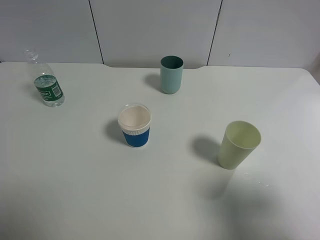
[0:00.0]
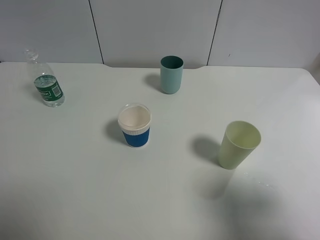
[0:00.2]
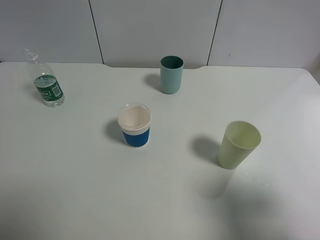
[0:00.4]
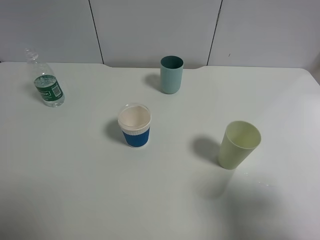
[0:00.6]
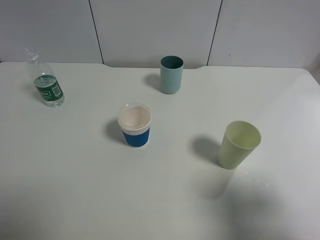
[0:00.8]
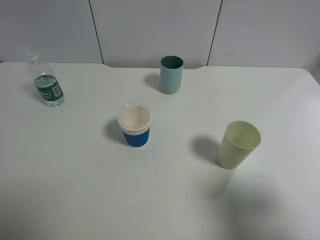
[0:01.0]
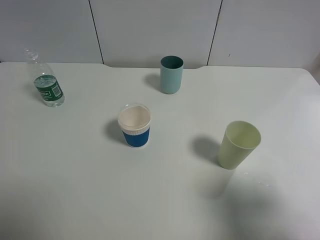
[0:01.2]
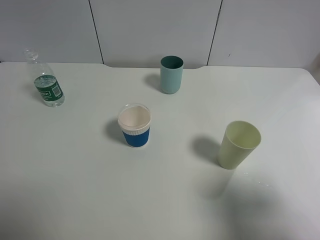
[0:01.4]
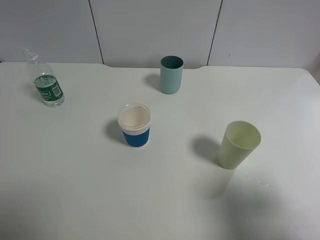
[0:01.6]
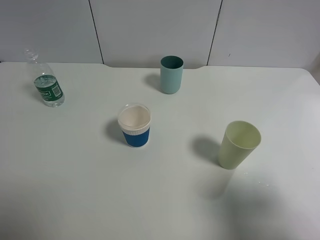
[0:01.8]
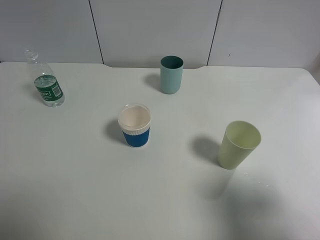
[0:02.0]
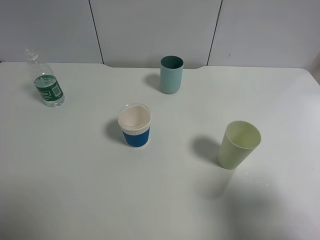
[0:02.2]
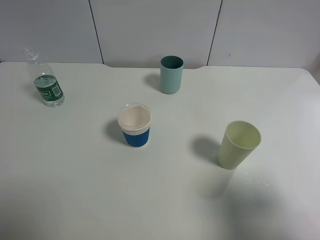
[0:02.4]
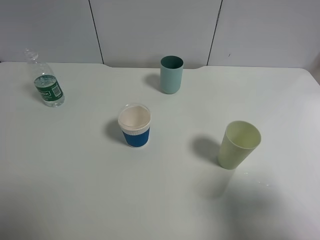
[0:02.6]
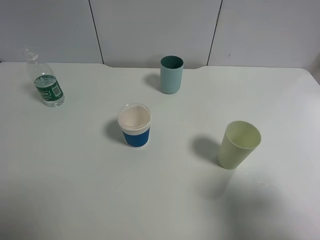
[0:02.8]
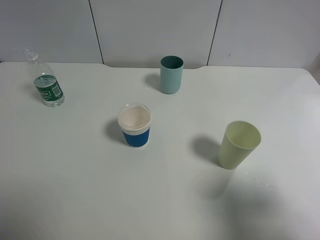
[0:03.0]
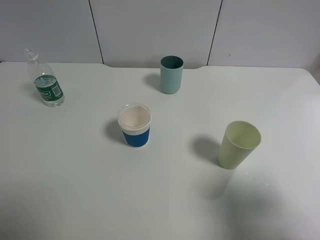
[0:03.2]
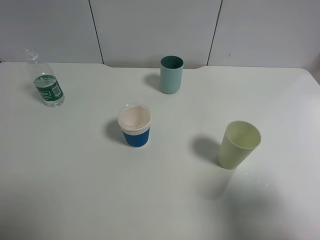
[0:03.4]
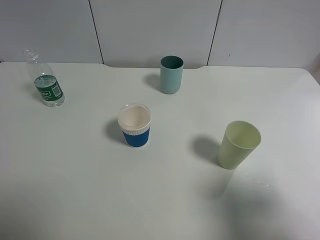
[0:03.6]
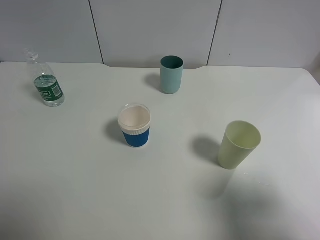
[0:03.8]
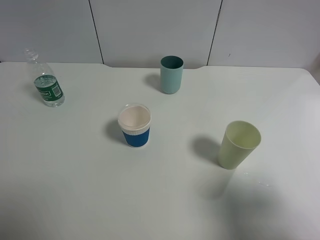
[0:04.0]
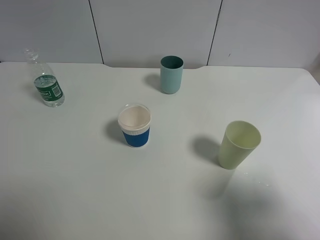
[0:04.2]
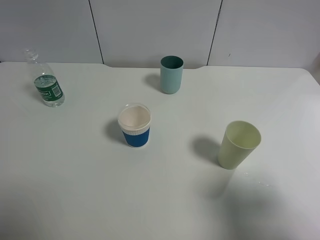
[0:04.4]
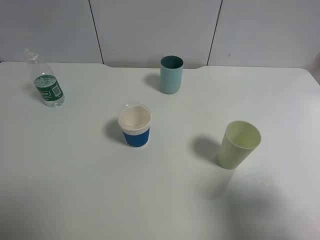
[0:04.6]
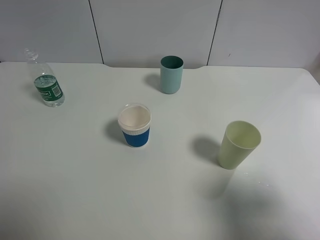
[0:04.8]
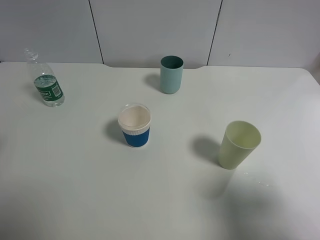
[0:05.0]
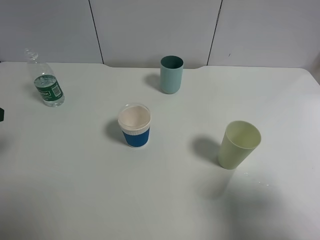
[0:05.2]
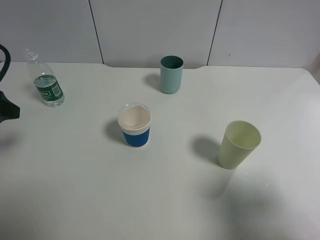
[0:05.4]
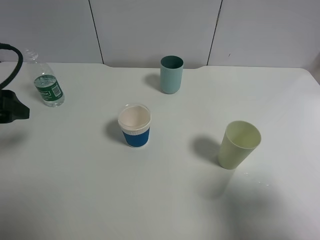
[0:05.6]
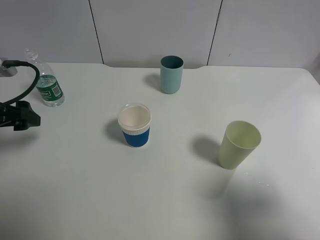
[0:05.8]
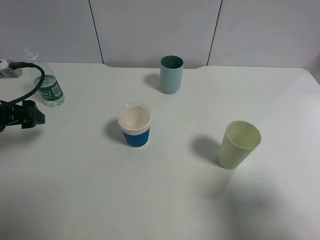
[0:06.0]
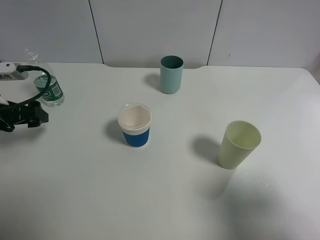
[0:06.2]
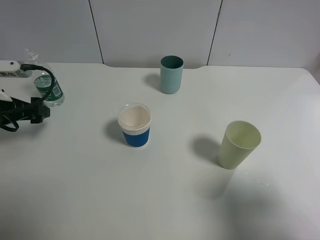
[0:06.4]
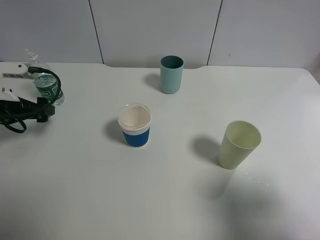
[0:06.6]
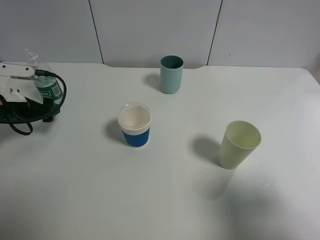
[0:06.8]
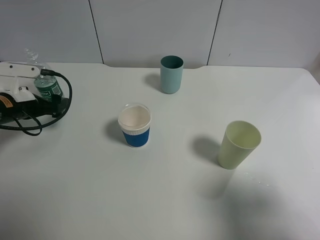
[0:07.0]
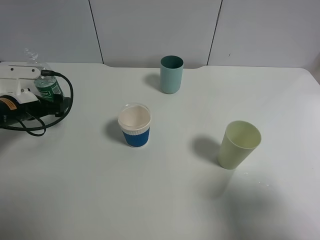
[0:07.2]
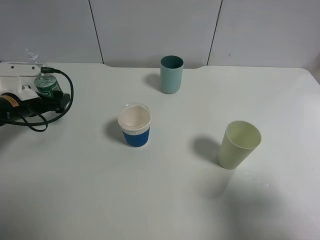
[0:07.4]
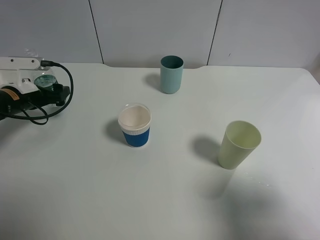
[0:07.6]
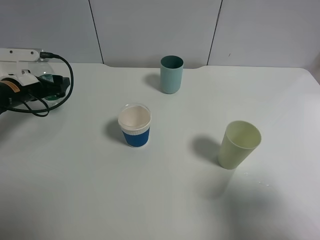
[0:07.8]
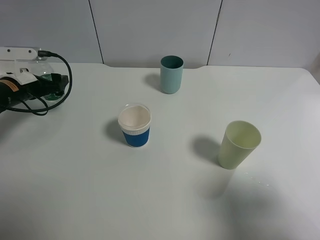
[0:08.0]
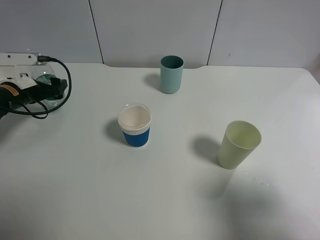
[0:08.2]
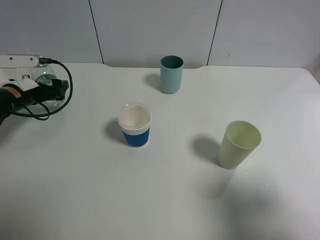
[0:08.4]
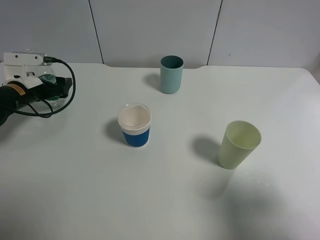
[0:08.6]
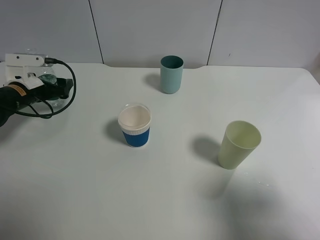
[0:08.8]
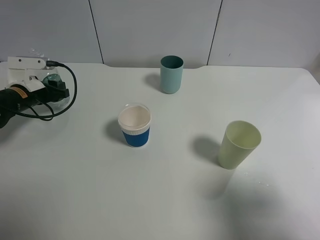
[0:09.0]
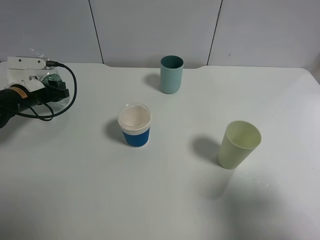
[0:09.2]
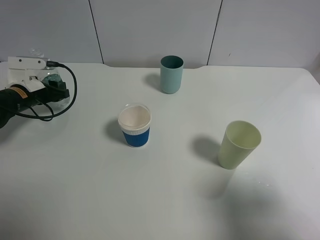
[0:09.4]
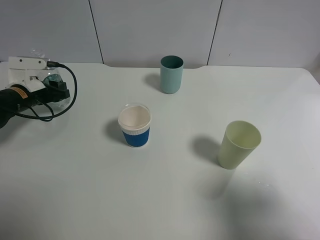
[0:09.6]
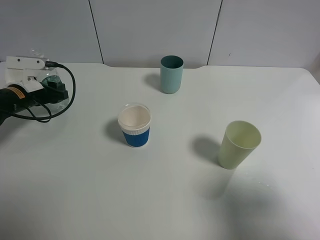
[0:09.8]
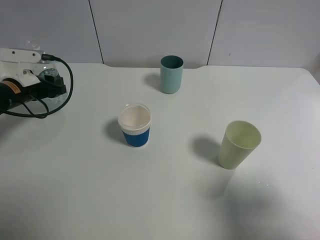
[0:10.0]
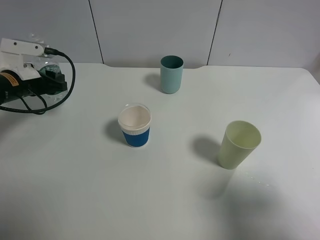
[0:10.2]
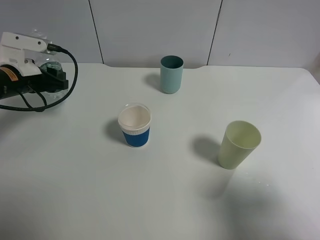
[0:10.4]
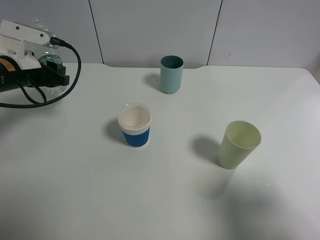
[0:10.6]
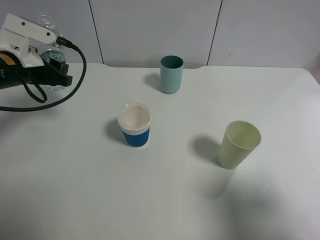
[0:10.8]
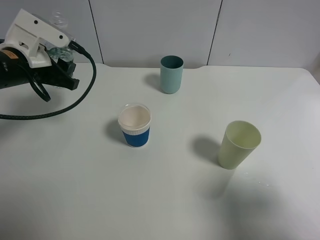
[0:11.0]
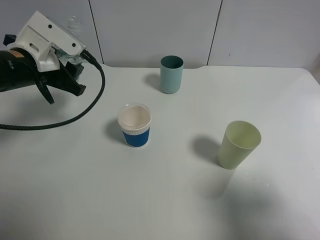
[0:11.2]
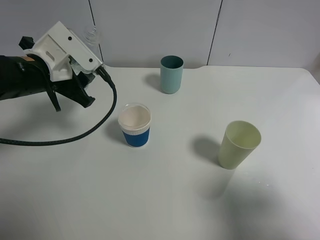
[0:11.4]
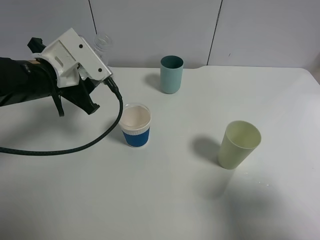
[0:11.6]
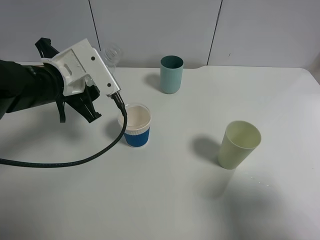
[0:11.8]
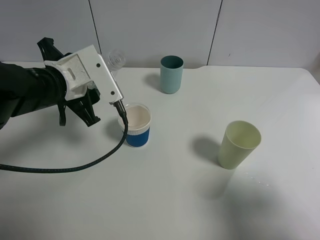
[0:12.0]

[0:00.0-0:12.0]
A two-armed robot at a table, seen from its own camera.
Task of the whole recording: use a gripper to hold the bottle of the drink and pour it into a random cup.
Step, 0:00.0 to 0:09.4: Grasp the mineral water bottle with the left gripper.
0:00.0 to 0:03.0: The two grippers keep their place.
0:04.4 to 0:06.0: The left gripper goes approximately 20 cm forward and downward.
0:06.0 to 0:07.6: The left gripper travels forward and downward by roughly 10 cm.
0:07.6 to 0:09.0: The left gripper closes up.
0:09.0 to 0:10.4: The left gripper moves upward, approximately 5 cm.
0:10.4 to 0:12.0: The left gripper moves to the right and backward, about 15 cm.

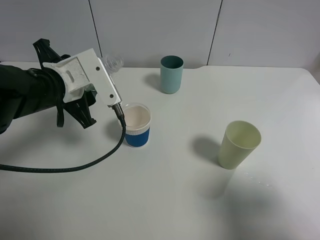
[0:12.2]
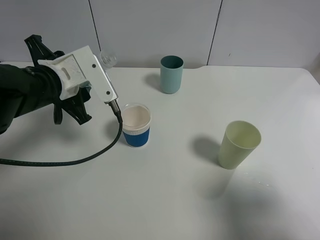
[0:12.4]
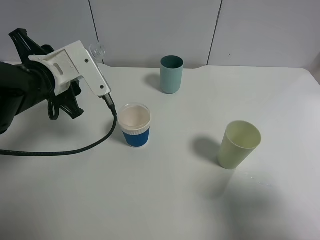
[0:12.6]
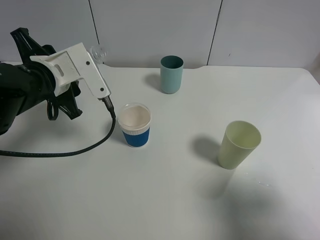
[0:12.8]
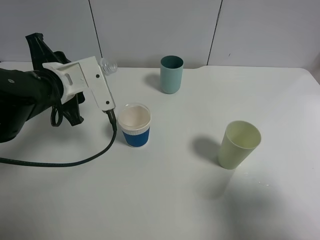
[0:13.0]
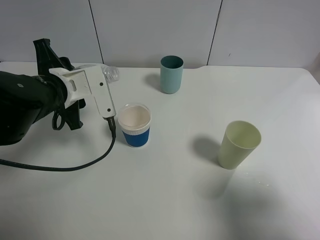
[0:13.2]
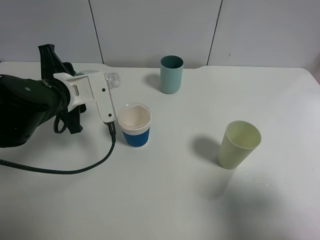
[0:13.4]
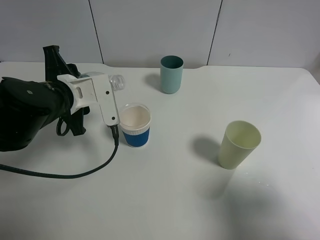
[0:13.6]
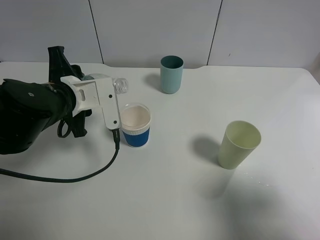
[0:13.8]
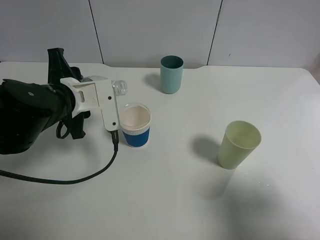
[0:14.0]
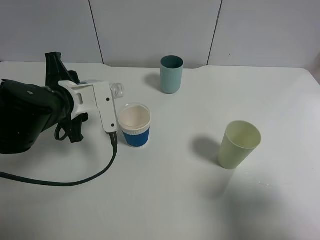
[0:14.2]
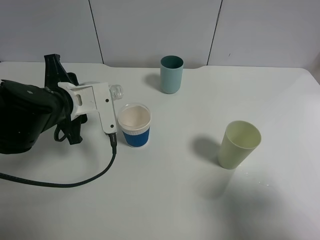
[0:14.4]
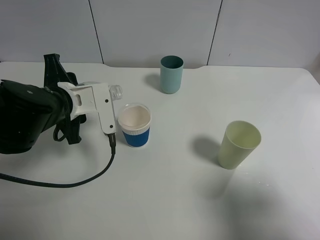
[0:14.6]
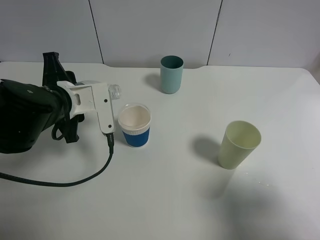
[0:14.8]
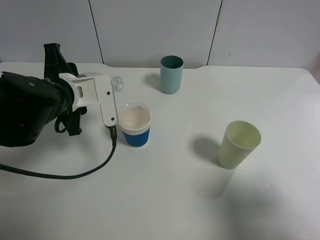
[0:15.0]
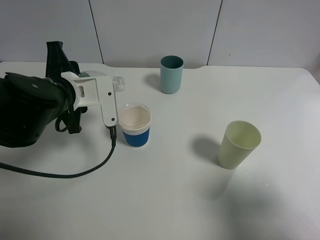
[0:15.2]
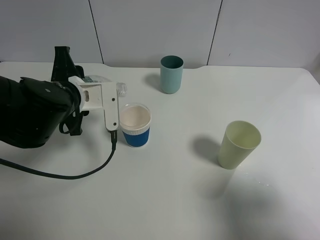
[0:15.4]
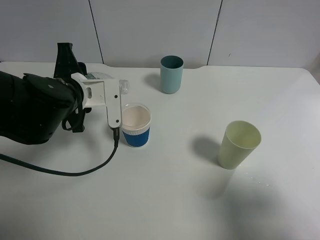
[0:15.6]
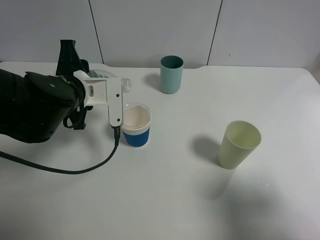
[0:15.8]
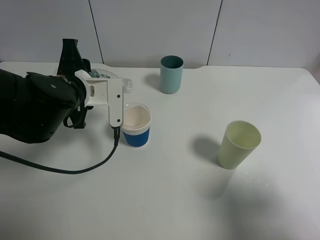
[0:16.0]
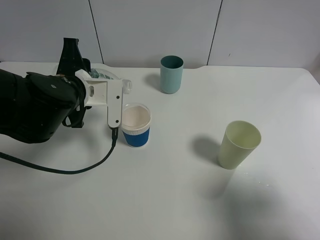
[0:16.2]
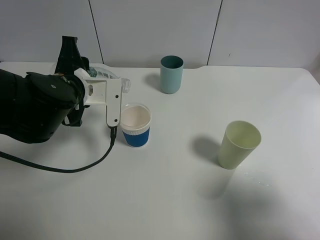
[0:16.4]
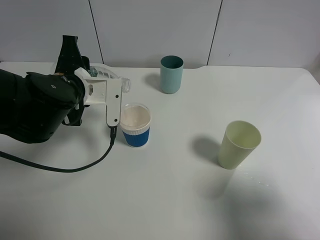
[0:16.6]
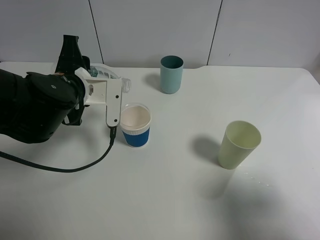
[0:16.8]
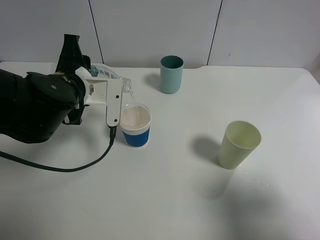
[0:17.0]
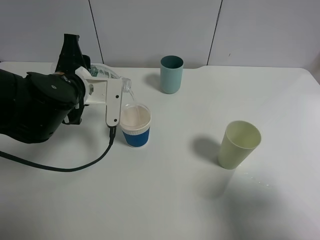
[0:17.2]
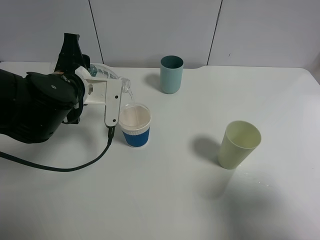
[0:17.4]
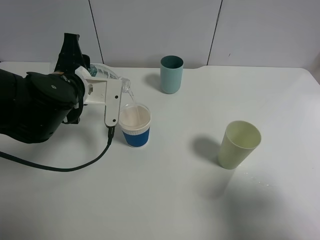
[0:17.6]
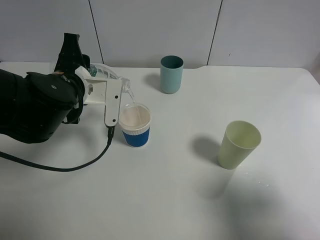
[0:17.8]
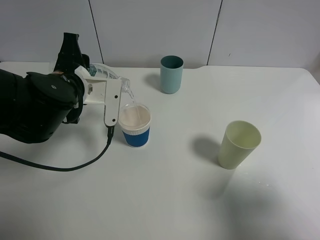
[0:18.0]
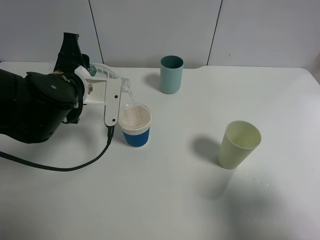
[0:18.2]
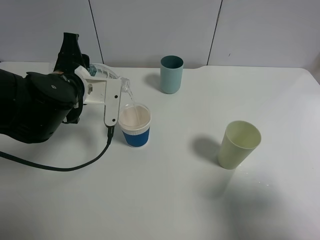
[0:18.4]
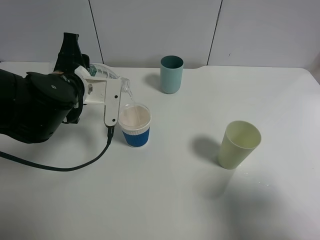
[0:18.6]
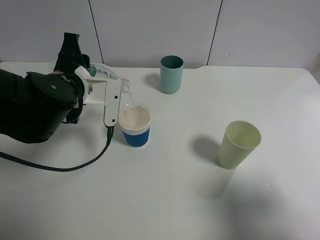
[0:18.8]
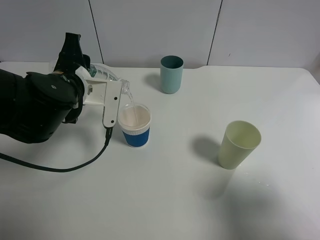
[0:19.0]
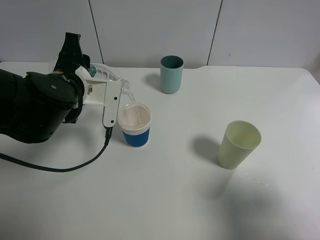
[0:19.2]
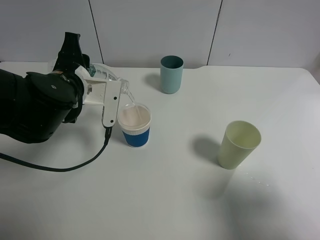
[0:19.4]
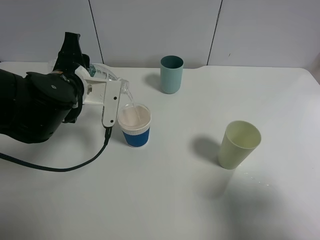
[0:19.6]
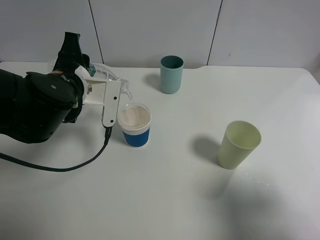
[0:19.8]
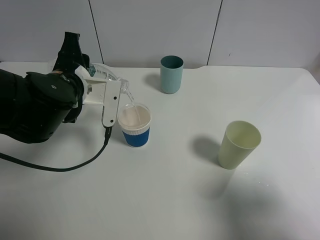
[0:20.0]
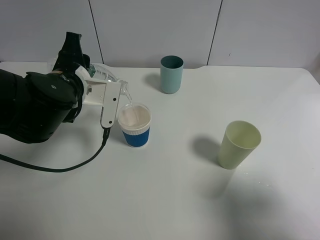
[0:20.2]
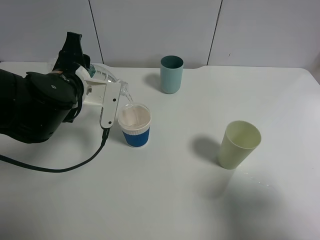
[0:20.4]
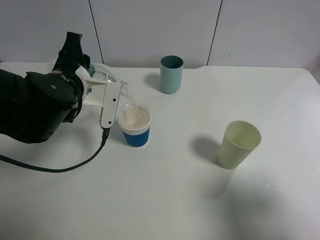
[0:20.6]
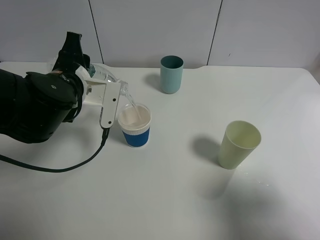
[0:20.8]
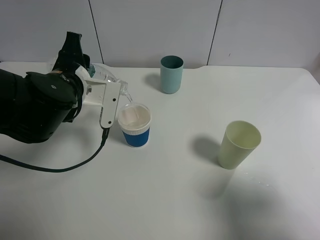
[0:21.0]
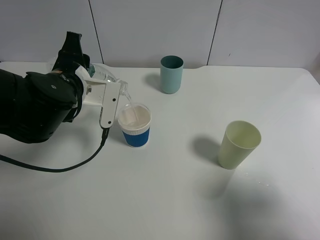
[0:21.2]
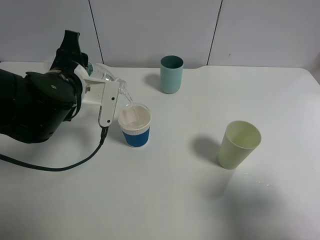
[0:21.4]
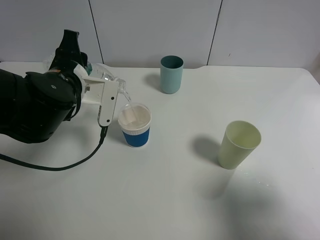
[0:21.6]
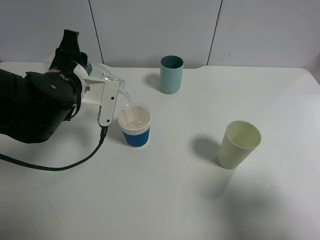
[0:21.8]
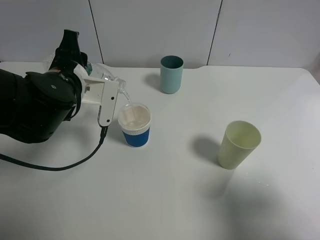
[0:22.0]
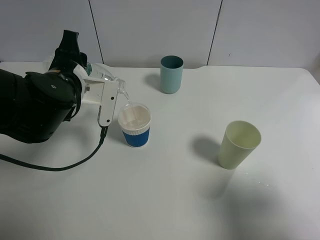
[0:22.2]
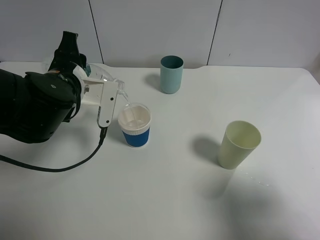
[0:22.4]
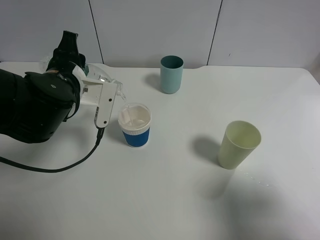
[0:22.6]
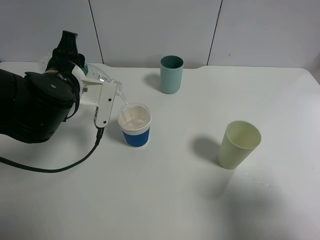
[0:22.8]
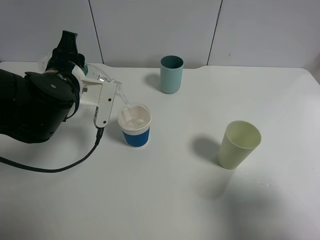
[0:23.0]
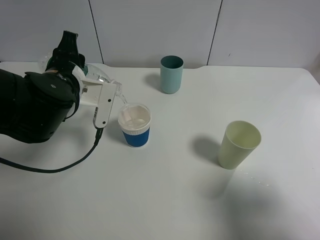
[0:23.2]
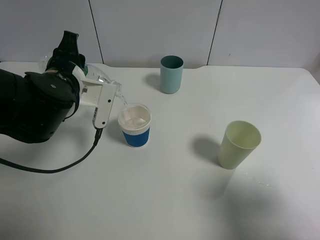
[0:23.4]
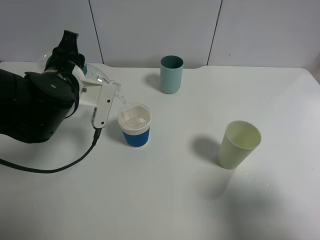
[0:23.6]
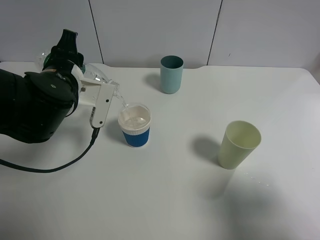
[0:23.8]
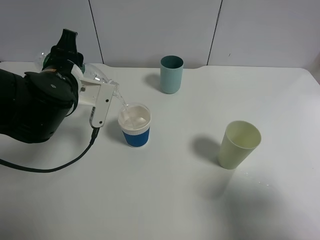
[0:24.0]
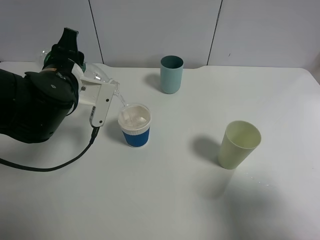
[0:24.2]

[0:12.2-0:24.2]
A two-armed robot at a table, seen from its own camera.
Task of the whole recording: use a gripper to hold the bottle of the drink and pour it into a random cup.
0:13.8 to 0:16.6: The grippers stay close to where they were, moving slightly.
0:16.6 to 0:18.2: The two grippers keep their place.
0:18.2 to 0:19.8: Both grippers stay about where they are.
0:19.8 to 0:21.2: Neither gripper changes place.
0:21.2 to 0:22.6: The two grippers keep their place.
0:22.6 to 0:24.2: Both grippers stay put.
